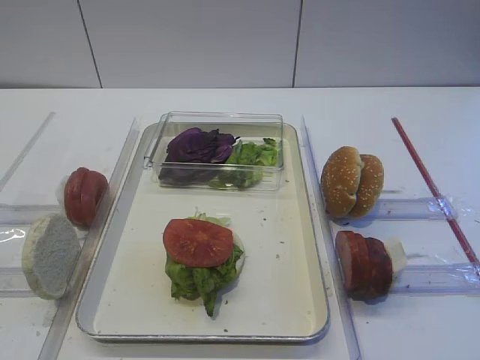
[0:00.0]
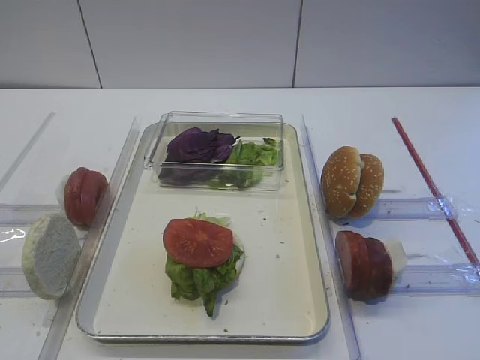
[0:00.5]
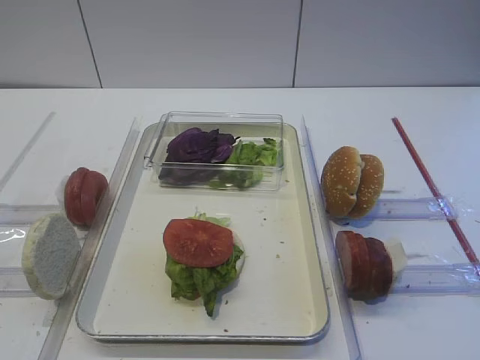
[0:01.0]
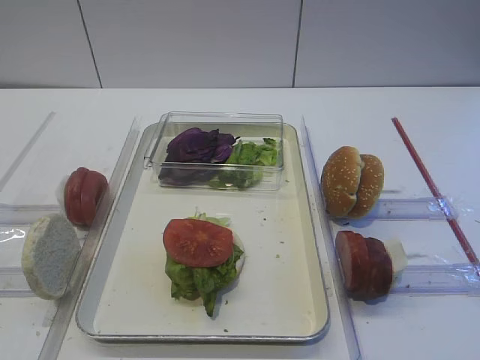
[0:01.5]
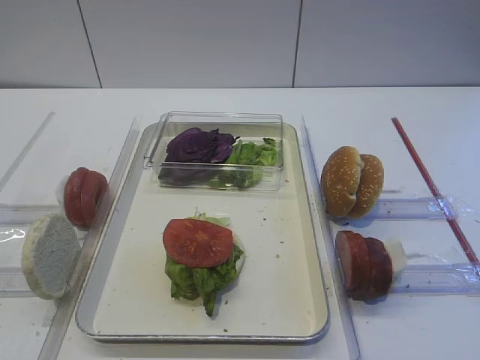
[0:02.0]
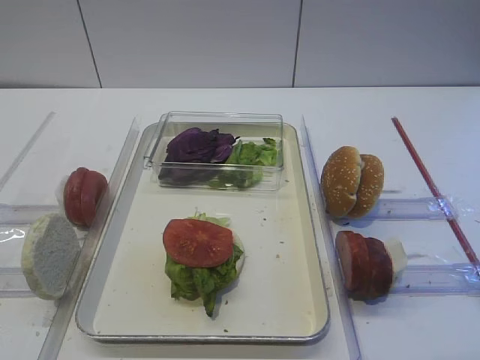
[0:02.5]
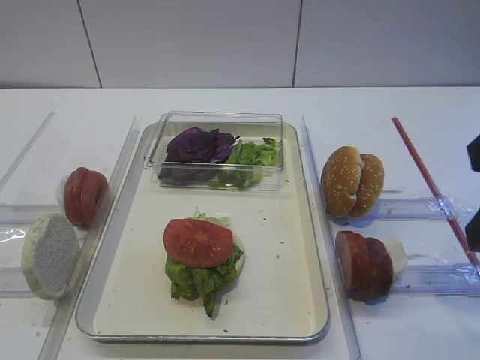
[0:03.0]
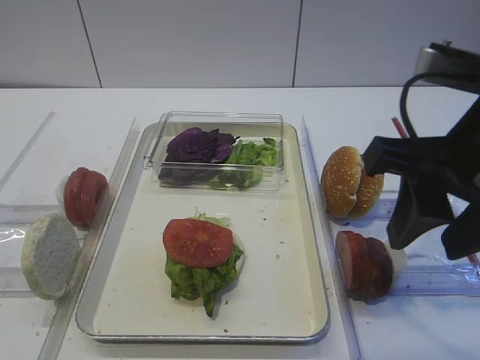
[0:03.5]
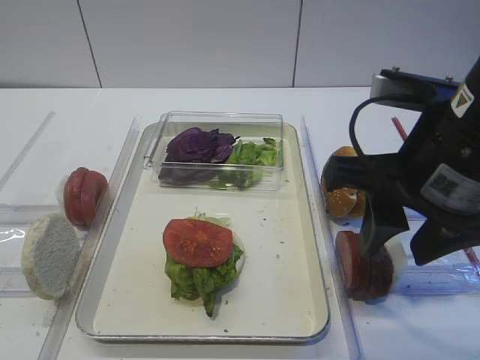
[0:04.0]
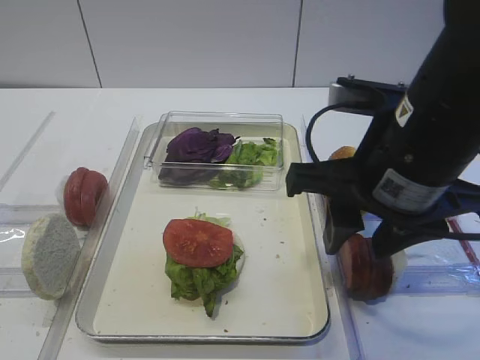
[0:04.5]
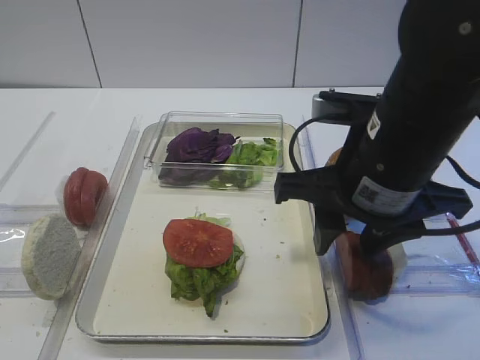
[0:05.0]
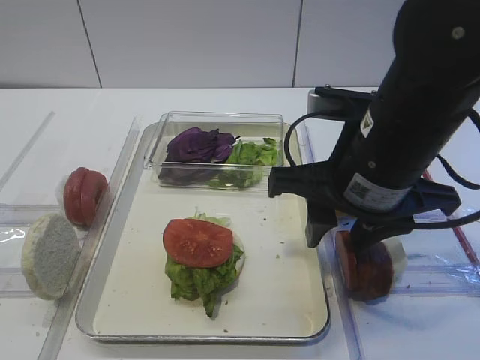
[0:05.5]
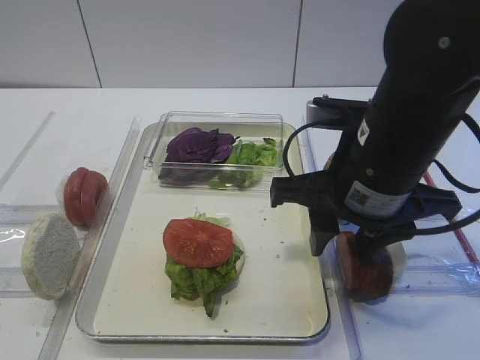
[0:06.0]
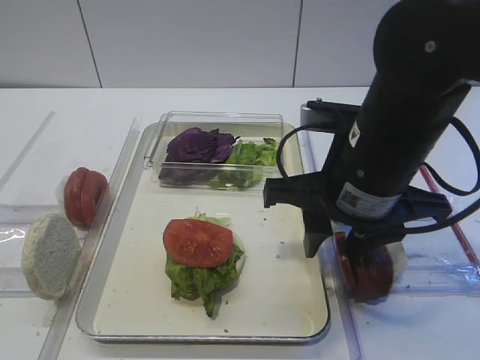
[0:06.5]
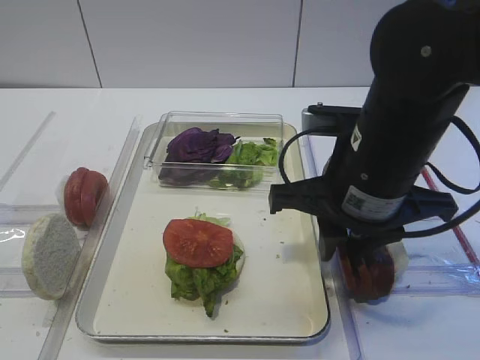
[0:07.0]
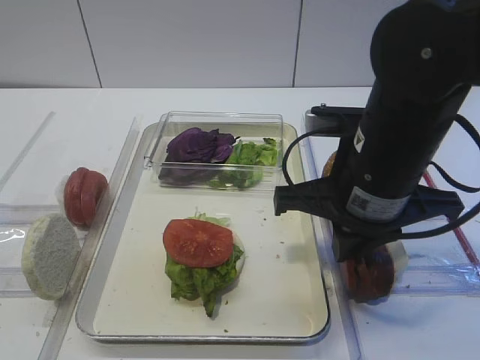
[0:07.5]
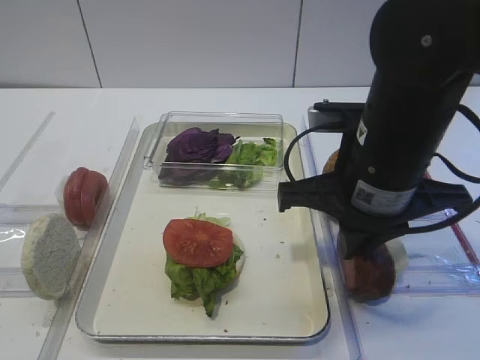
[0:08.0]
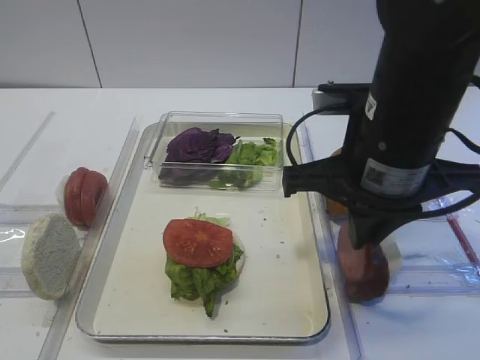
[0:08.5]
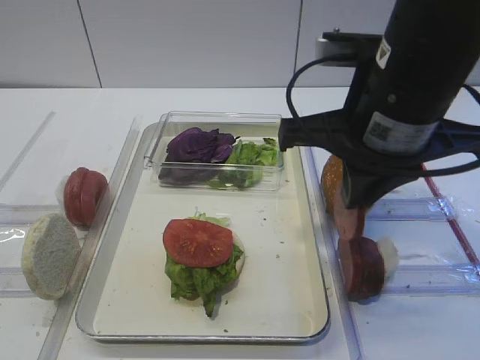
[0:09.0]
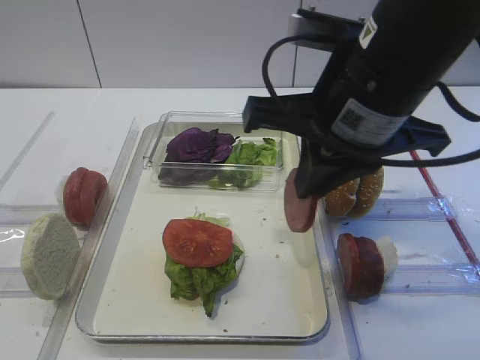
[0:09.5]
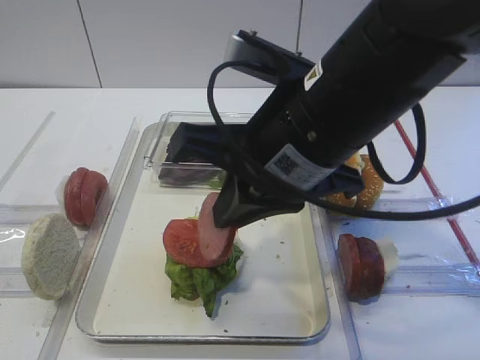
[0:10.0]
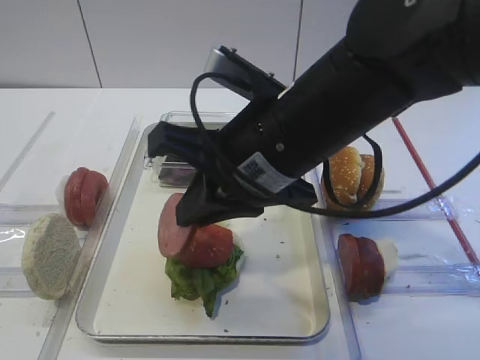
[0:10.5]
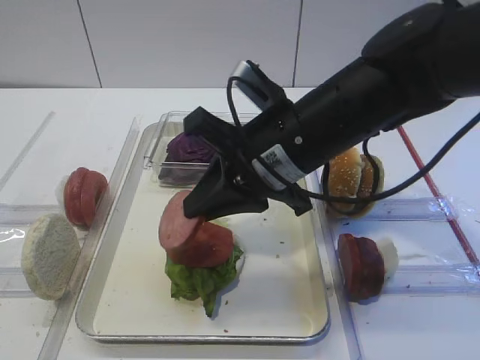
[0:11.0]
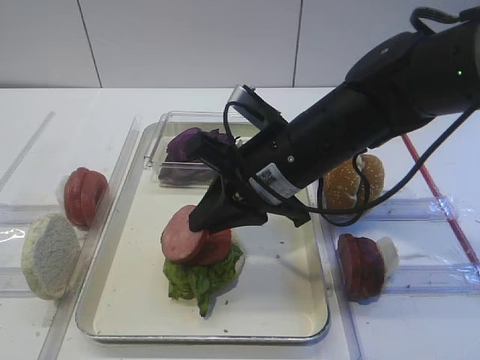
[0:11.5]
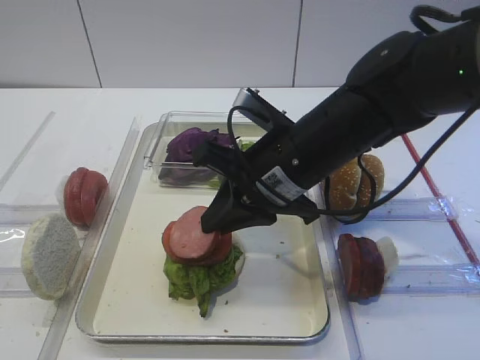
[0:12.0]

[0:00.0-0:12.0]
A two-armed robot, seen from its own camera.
Step, 0:00.0 to 0:08.5: Pick up the cutlet with the right gripper.
0:02.0 to 0:04.0: The right gripper travels to the left, forward and downward by some 20 cm.
0:04.0 to 0:06.0: The right gripper shifts by approximately 5 cm.
0:06.0 to 0:08.0: The right gripper closes up.
0:08.0 to 0:10.0: The right gripper shifts some 10 cm to the left and upward.
0:10.0 to 0:12.0: The right gripper is displaced downward and forward by approximately 10 cm.

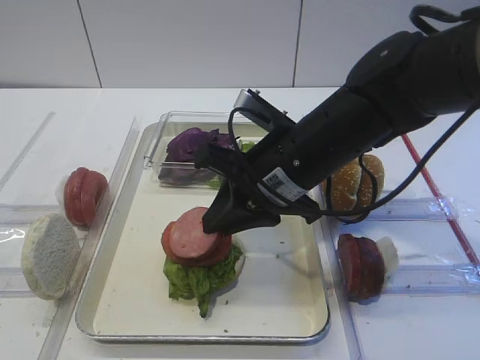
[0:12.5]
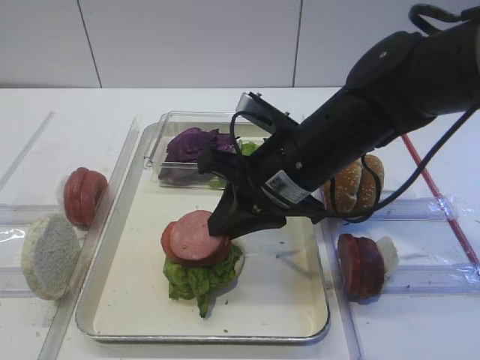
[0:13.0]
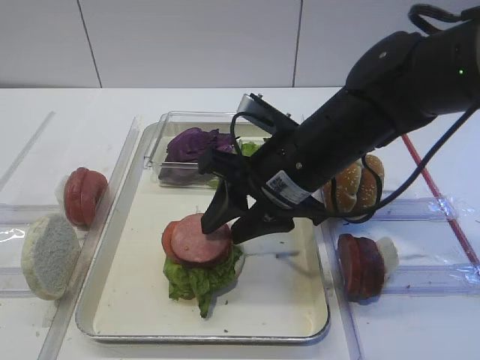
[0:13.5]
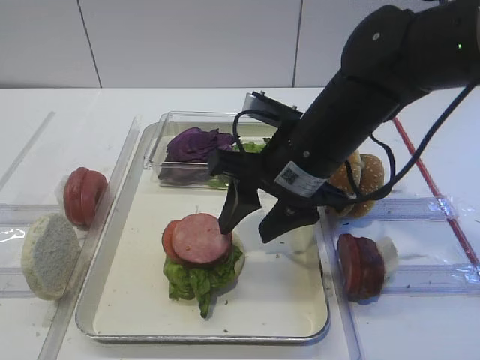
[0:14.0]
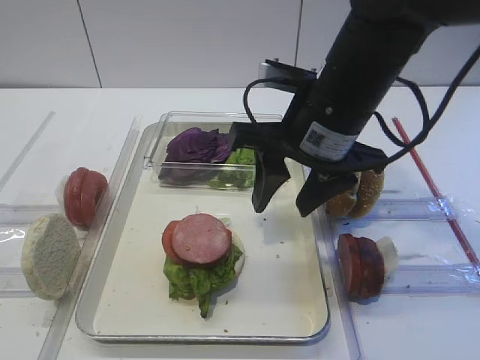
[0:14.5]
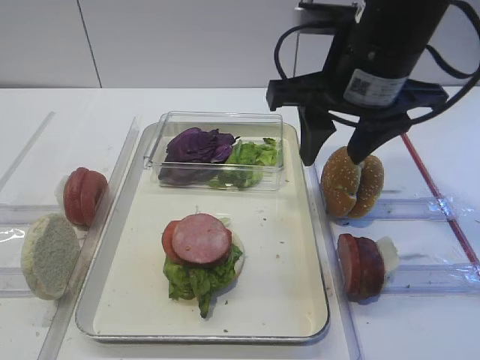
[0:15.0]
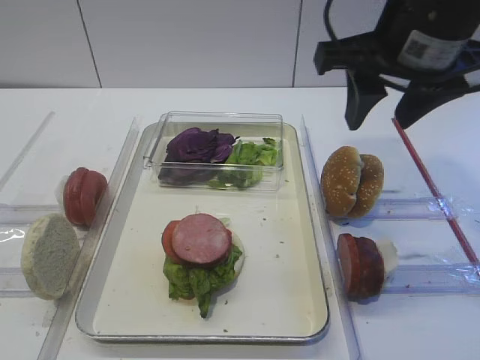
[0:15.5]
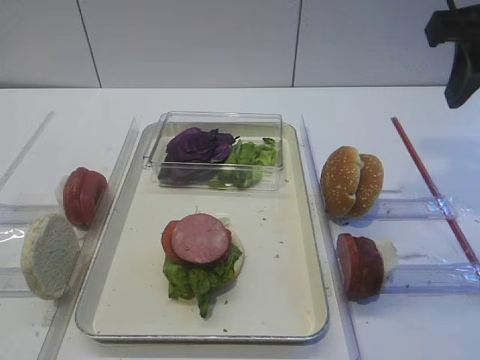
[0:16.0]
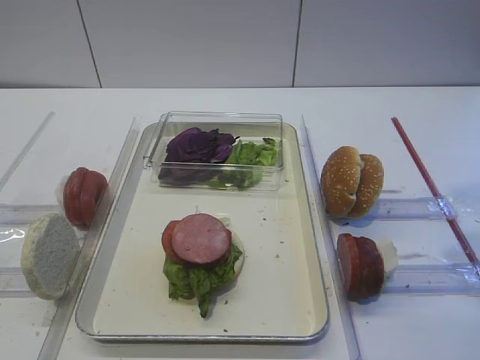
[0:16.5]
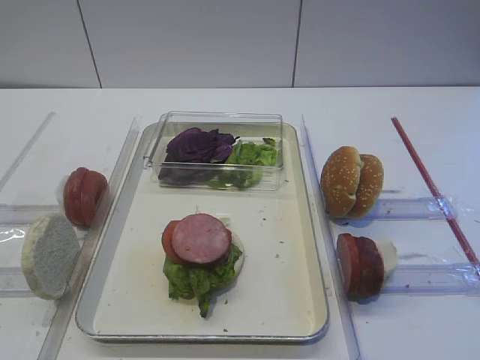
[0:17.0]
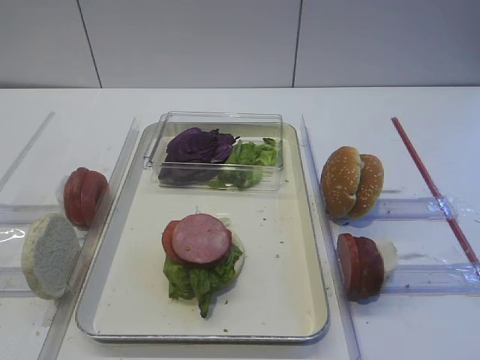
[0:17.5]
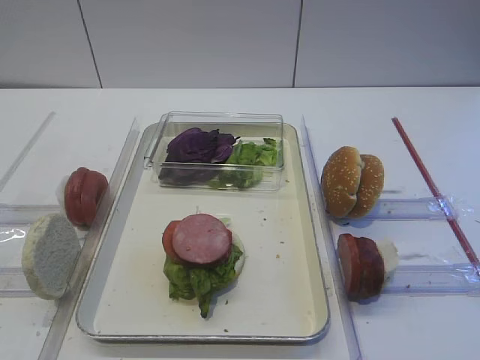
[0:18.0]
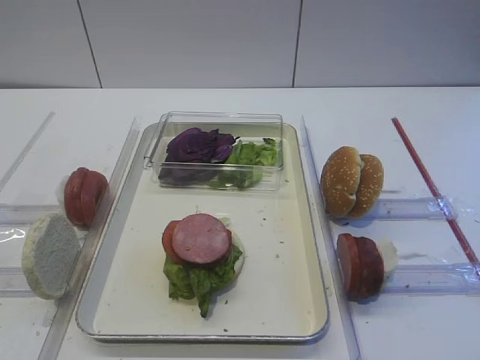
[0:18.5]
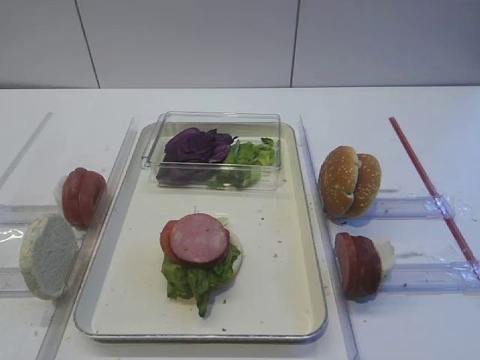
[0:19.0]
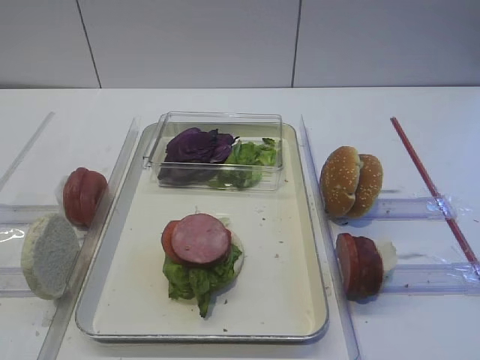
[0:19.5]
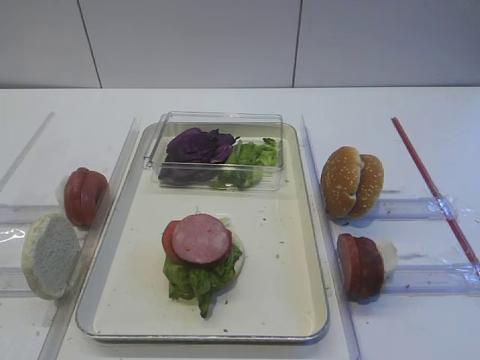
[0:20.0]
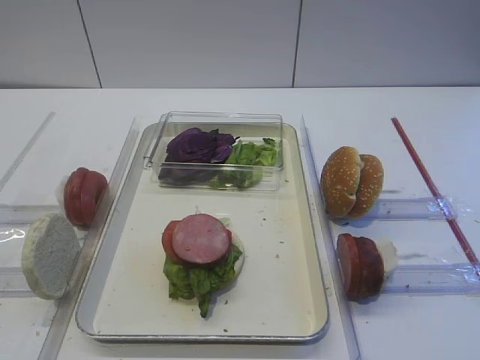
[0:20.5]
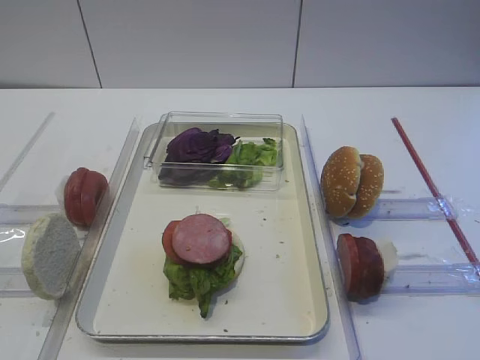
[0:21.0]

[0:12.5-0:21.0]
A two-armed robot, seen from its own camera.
0:12.5 to 0:14.5: The right gripper shifts by roughly 5 cm, and opens its fingers.
0:14.5 to 0:16.5: The right gripper moves to the right, backward and upward, approximately 20 cm.
0:16.5 to 0:19.0: The right gripper moves backward and downward, about 20 cm.
0:19.0 to 0:21.0: The grippers make only small movements.

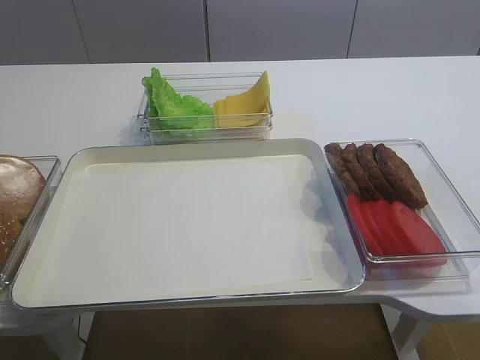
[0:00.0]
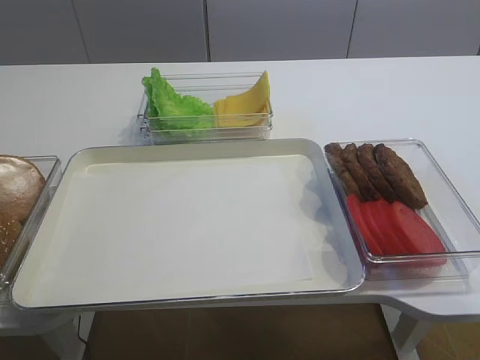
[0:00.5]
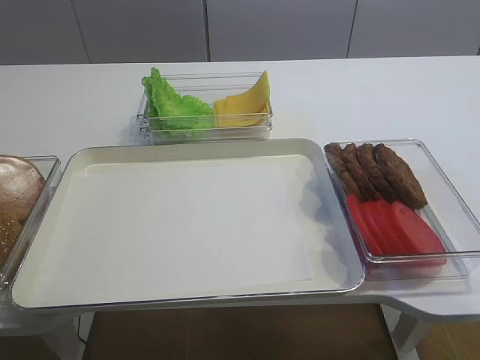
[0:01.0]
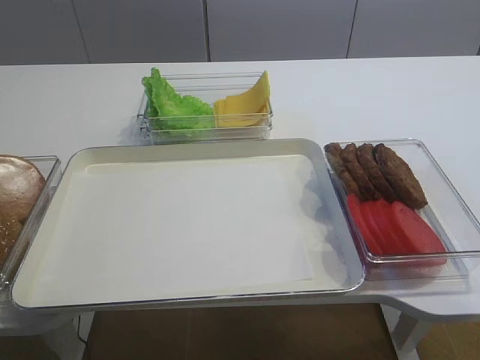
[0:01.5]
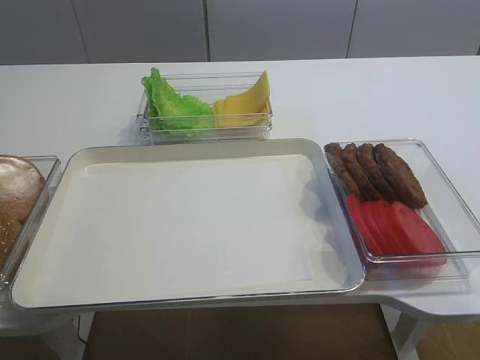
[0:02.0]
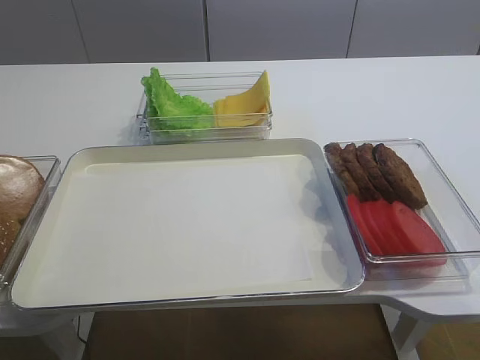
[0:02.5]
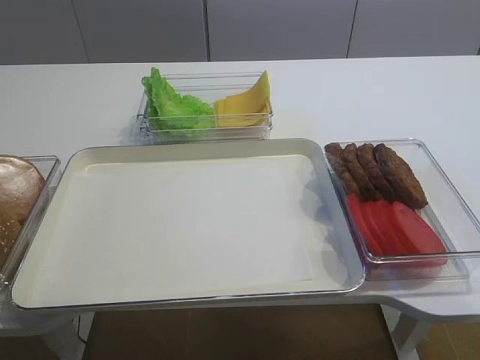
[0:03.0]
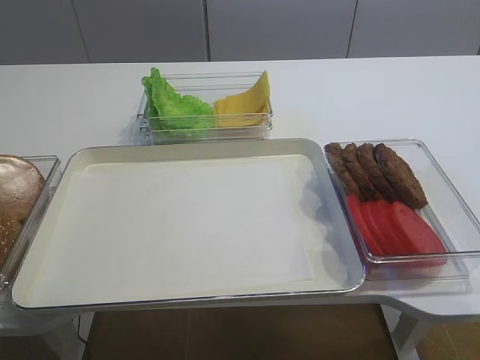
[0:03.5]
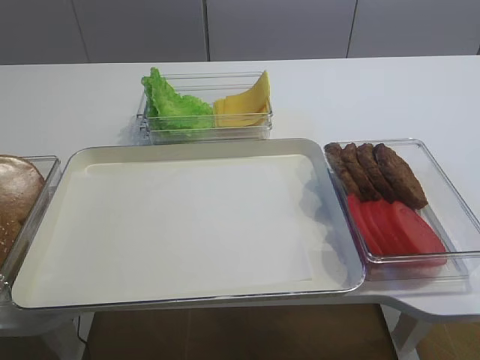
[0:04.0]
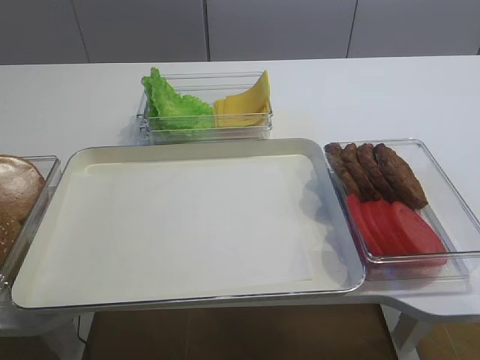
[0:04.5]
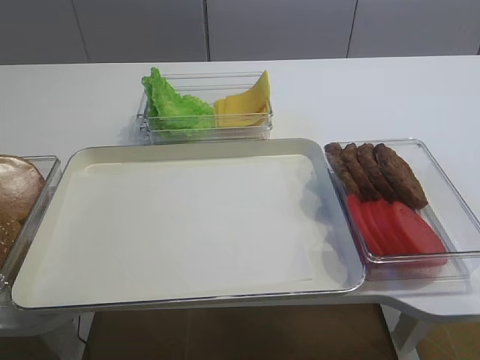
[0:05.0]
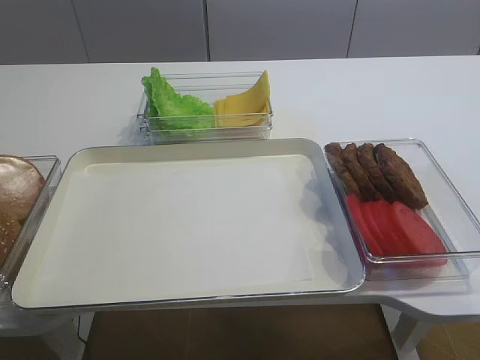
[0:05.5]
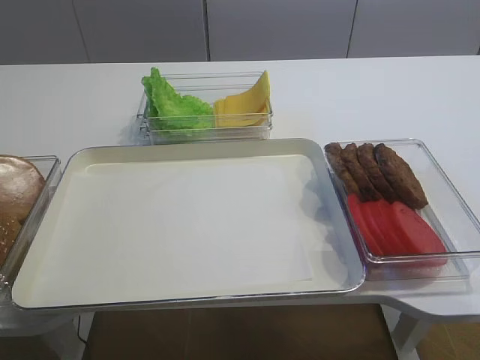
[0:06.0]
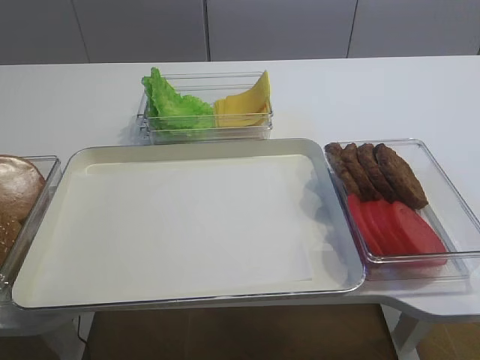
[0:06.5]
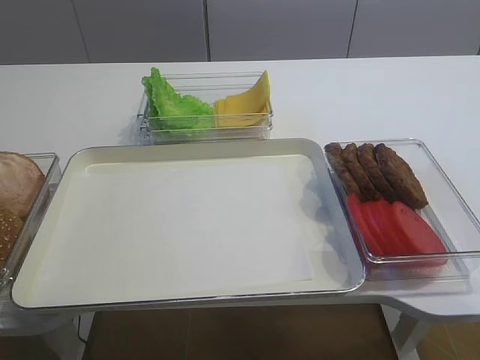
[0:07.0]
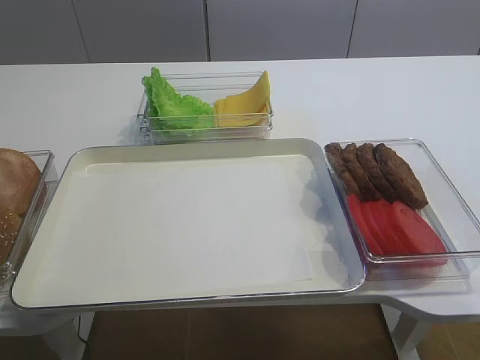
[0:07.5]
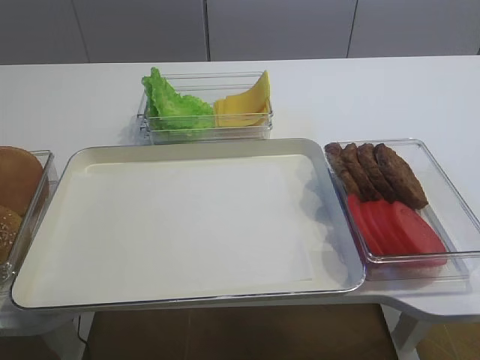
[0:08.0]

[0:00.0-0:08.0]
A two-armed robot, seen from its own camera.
0:06.0 to 0:08.0: The left gripper closes its fingers.
